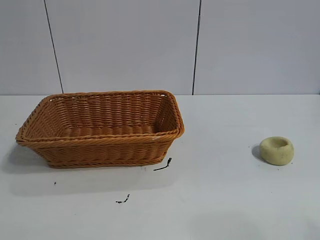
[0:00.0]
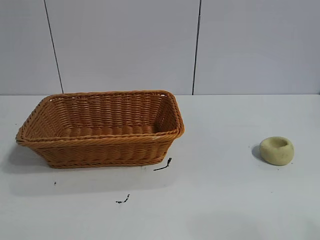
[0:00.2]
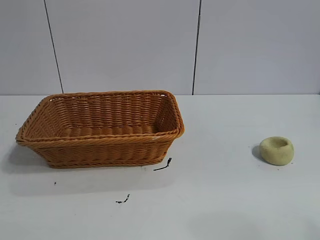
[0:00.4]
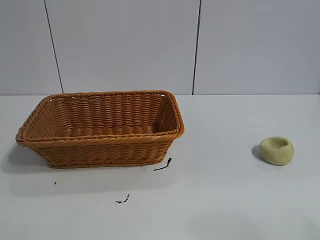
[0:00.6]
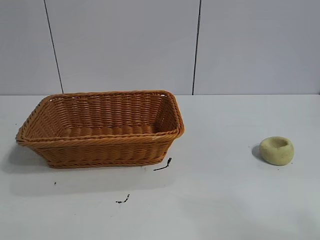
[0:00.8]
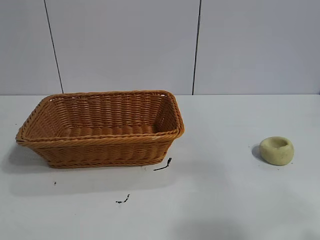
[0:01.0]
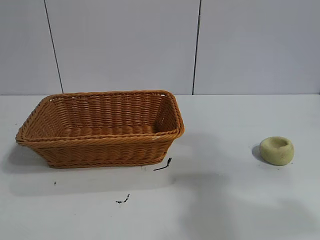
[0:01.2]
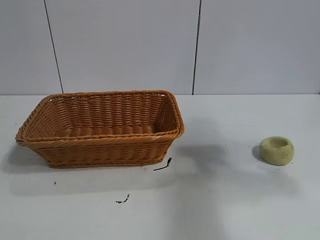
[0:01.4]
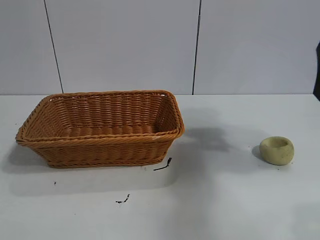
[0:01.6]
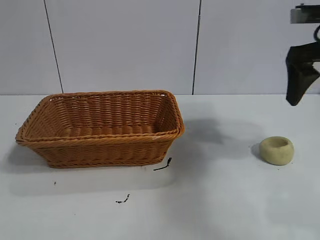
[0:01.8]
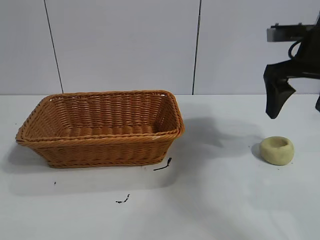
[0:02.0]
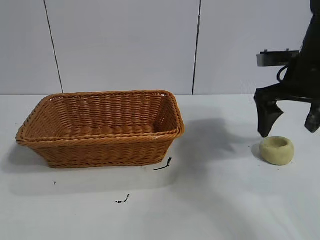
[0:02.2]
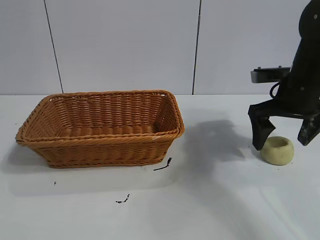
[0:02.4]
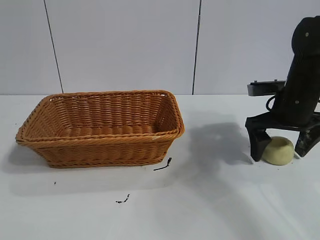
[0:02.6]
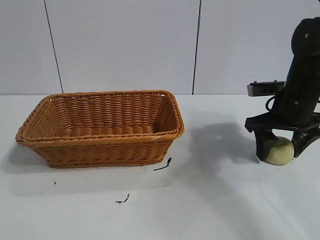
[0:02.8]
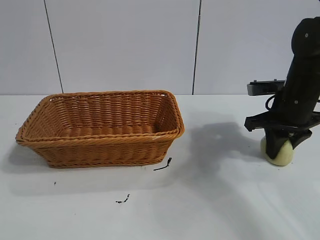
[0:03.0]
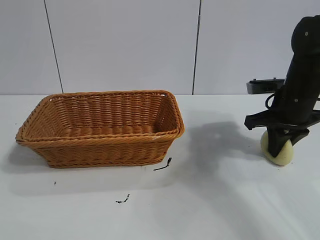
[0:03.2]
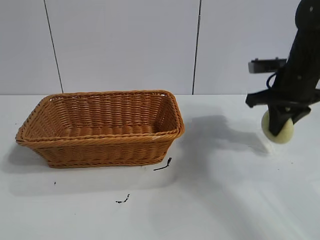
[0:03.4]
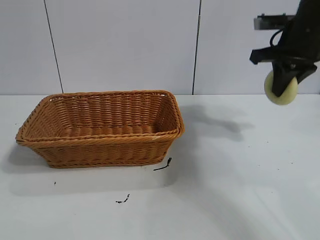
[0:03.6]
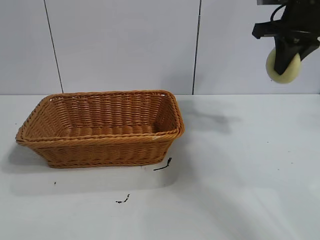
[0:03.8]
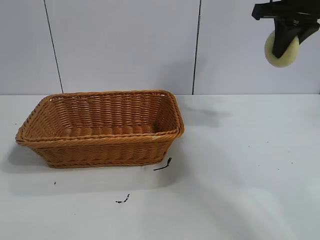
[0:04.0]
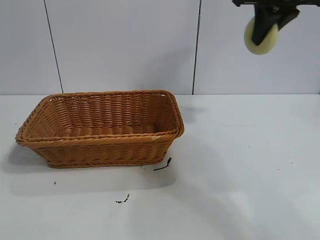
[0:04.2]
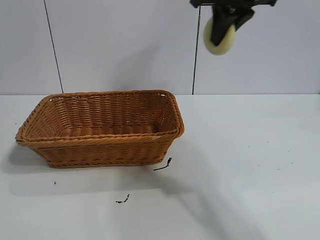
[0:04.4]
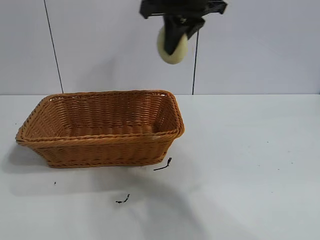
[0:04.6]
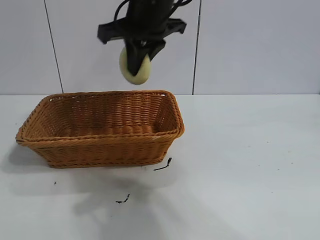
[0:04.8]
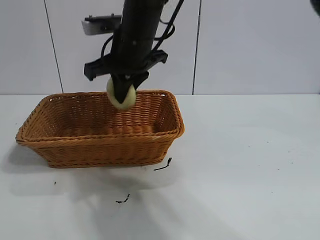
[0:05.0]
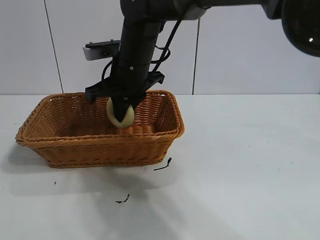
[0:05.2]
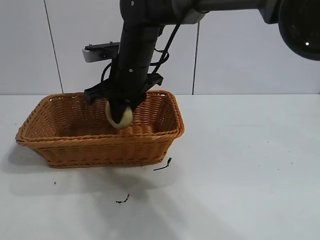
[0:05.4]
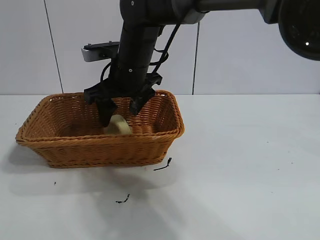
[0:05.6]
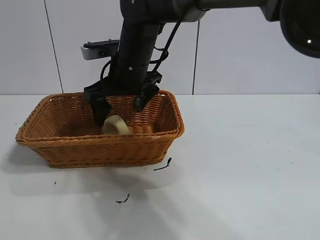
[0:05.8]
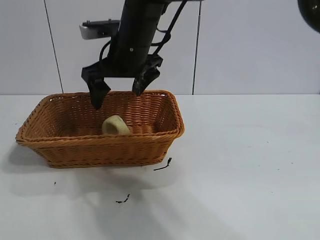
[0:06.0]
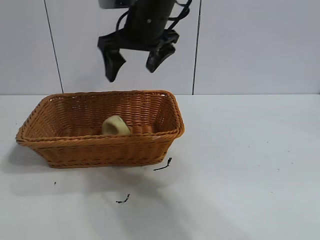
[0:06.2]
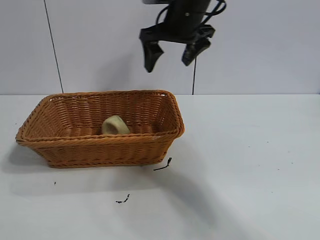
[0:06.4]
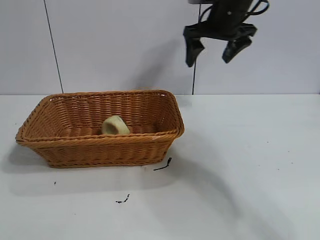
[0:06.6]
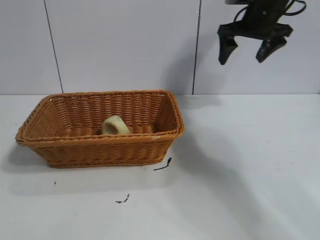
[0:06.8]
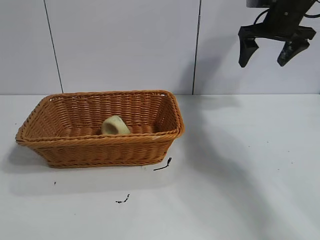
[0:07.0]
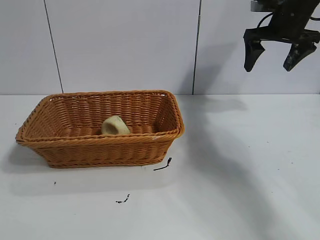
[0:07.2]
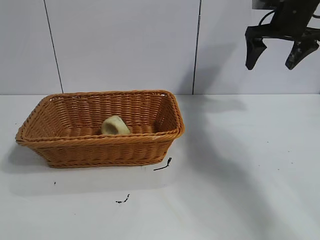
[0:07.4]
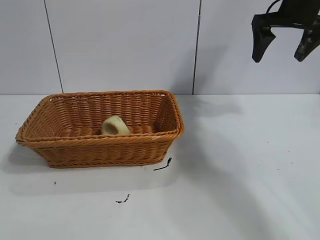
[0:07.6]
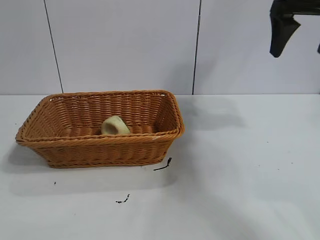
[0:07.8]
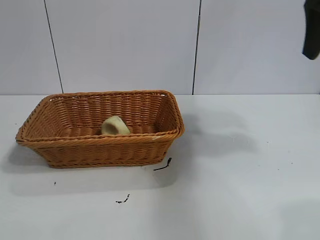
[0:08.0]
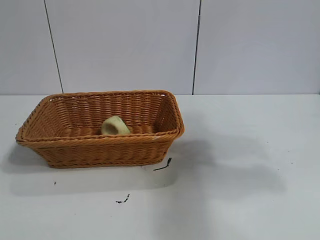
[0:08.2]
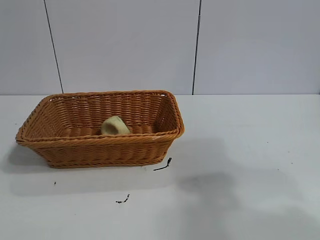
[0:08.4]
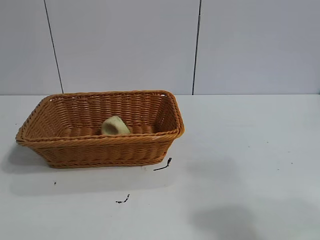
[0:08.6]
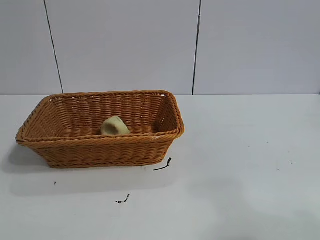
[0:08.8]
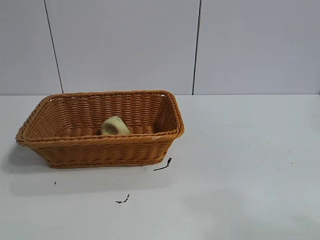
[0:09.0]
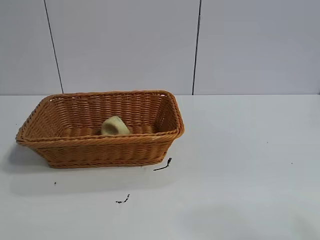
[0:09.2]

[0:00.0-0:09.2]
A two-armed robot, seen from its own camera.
Task of the whole recording: pick up the egg yolk pastry and put it into the basket.
Step, 0.8 to 2.8 s: Grasp egg yolk pastry with right gripper.
Step, 3.0 to 5.4 s: Place the egg yolk pastry in the basket with right gripper.

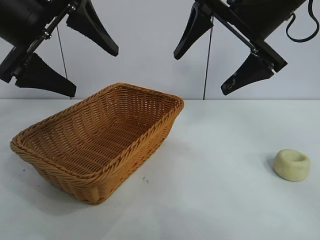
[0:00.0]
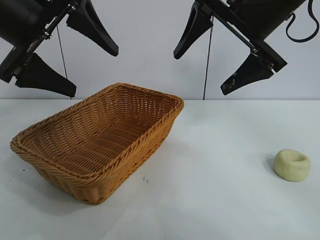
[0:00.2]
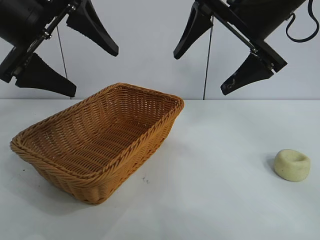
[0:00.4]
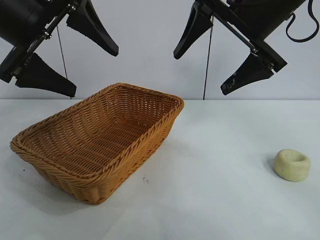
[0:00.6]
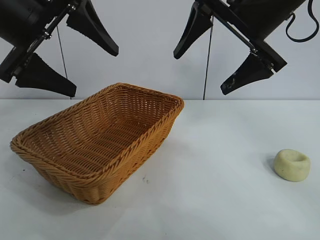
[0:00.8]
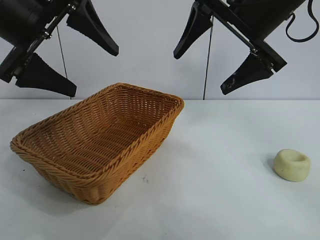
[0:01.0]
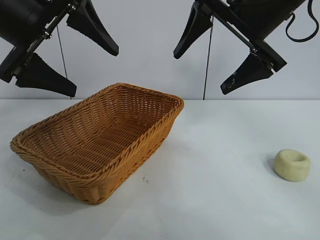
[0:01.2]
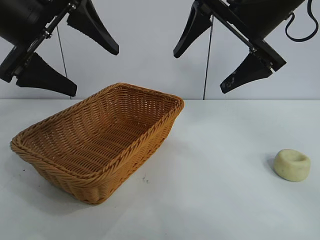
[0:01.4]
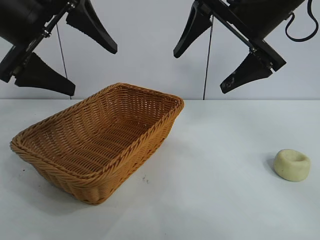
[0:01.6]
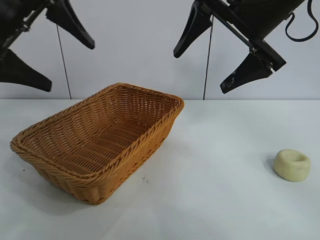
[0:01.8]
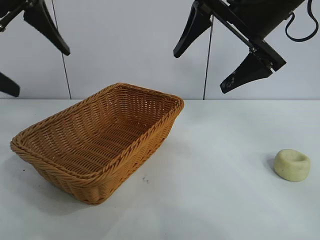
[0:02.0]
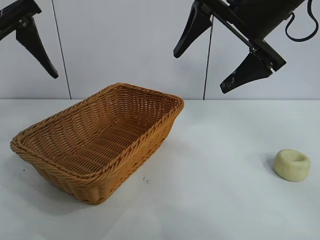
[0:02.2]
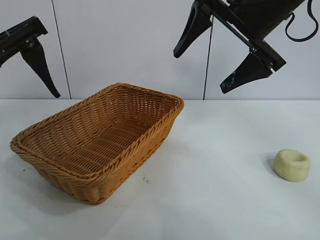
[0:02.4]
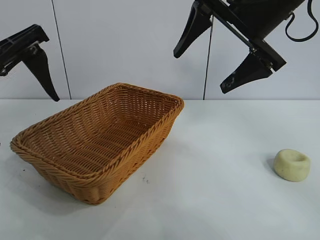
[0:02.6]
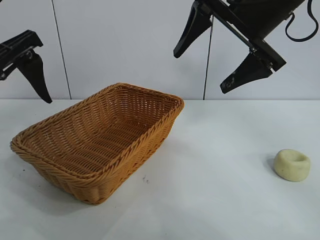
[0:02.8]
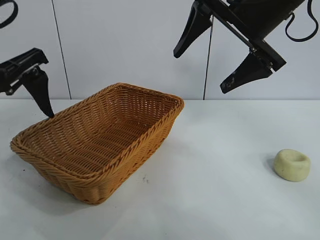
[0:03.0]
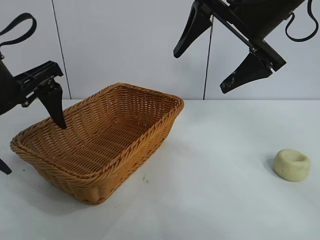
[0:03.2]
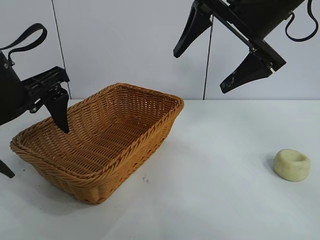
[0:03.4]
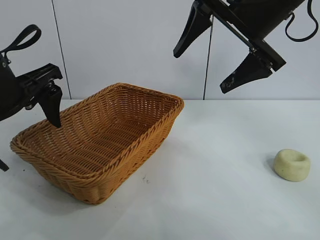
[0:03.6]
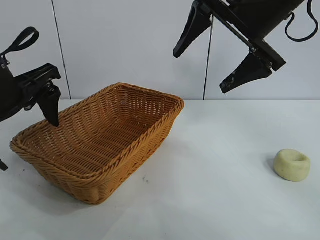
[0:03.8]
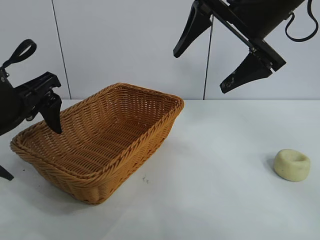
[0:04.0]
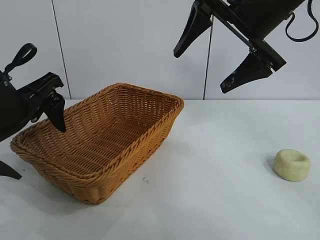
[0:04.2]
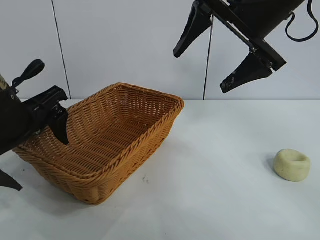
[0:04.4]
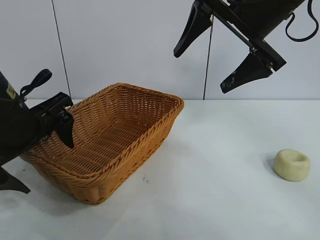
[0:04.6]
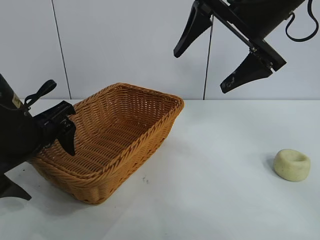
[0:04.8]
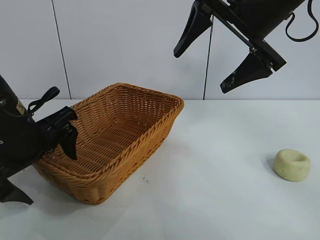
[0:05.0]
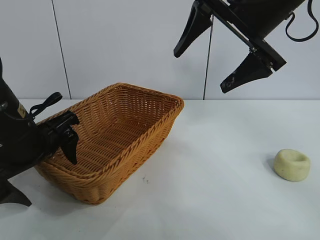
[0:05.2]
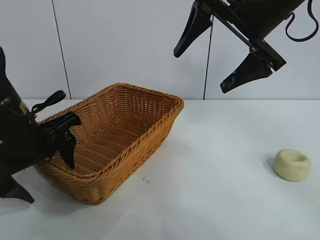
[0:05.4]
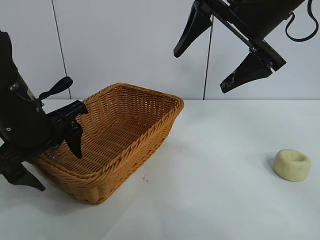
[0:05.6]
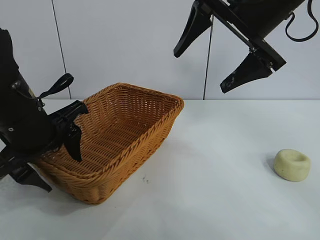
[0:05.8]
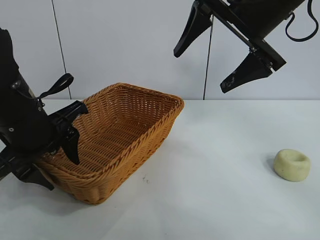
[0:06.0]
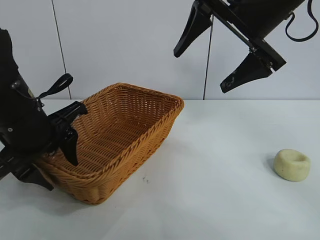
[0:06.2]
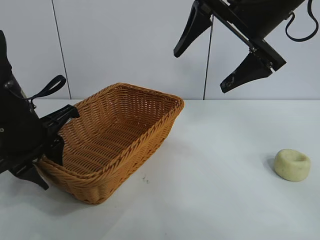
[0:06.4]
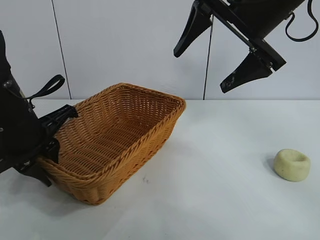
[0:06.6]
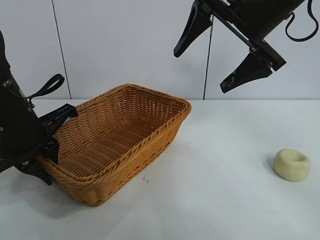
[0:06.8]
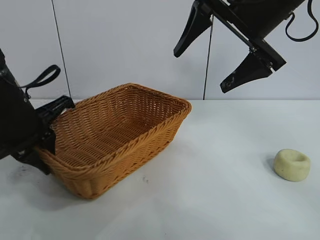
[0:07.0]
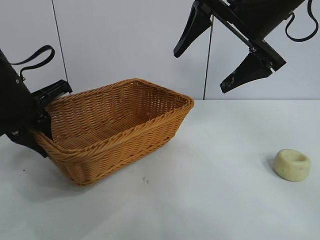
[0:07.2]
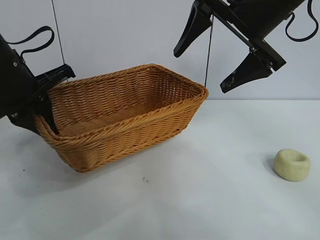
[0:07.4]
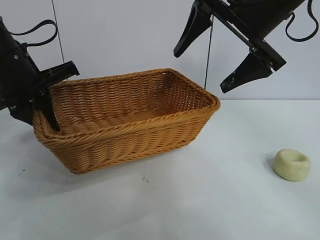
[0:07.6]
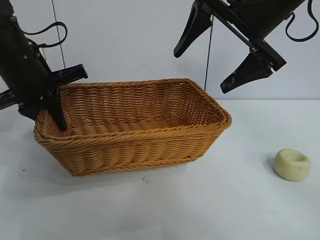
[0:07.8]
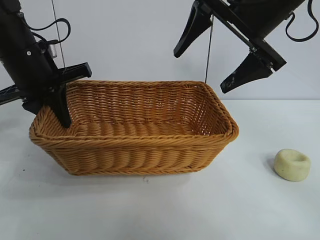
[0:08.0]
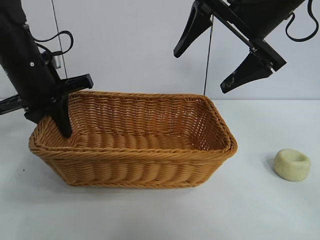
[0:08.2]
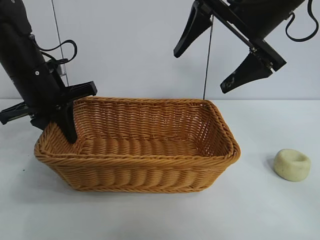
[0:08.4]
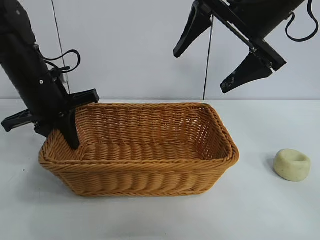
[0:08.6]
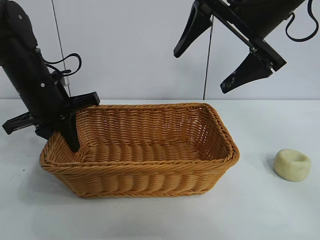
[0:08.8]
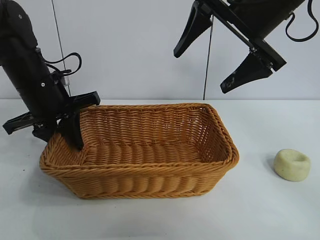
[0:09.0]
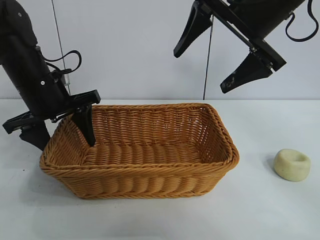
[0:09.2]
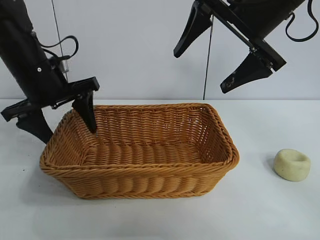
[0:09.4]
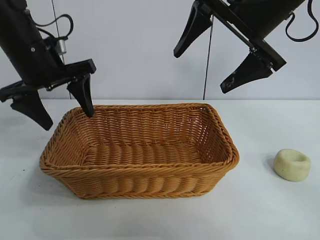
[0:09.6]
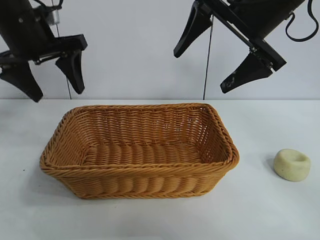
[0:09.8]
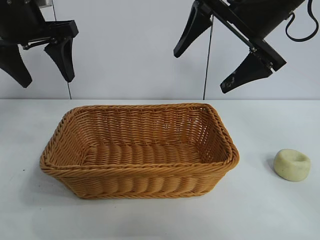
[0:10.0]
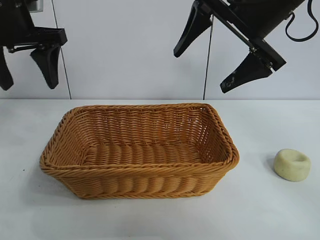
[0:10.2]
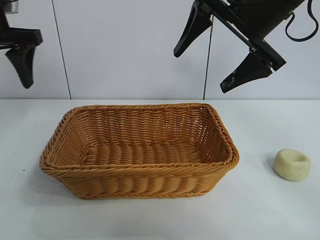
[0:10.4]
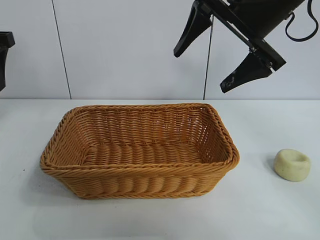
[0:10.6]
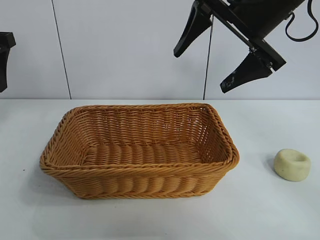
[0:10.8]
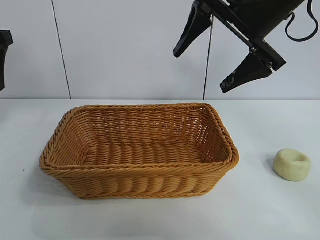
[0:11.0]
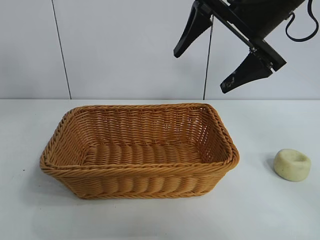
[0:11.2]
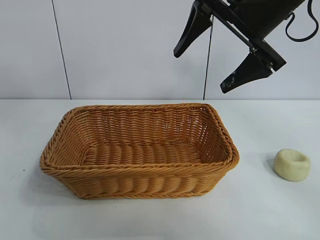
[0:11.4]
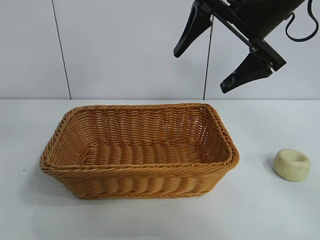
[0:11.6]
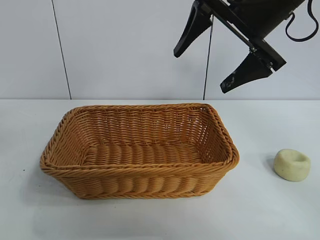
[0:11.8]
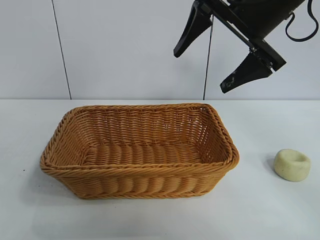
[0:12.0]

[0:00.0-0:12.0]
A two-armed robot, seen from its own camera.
Task of the whole recording: pick up the egg yolk pastry and put it into the basket.
Step, 0.8 to 6.6 s: Grasp the basket with left gripper.
Step, 7.0 to 9.0 s: Place the basket in the center of view with left gripper.

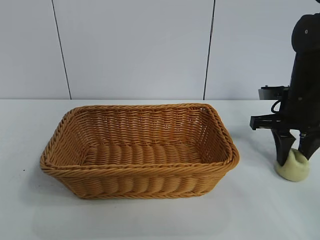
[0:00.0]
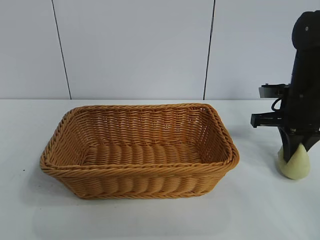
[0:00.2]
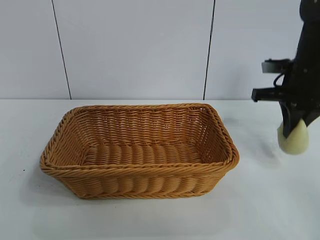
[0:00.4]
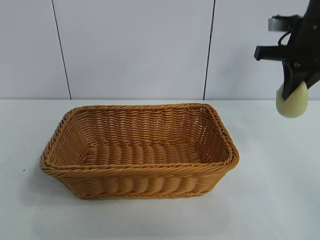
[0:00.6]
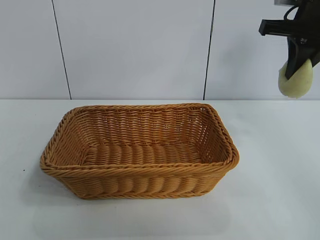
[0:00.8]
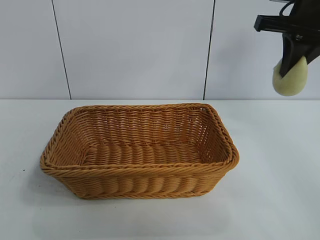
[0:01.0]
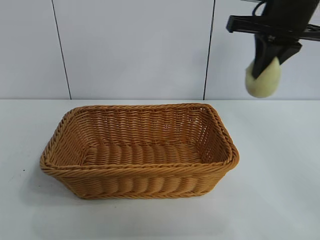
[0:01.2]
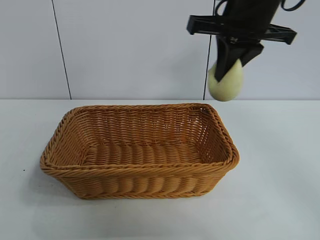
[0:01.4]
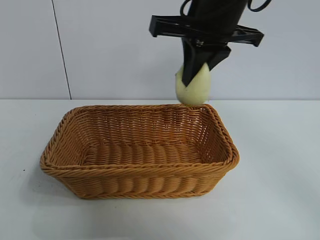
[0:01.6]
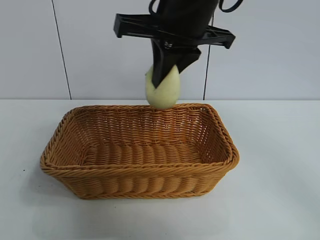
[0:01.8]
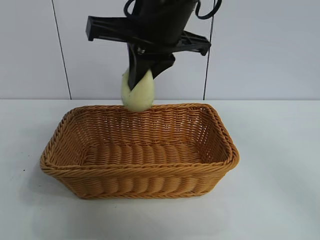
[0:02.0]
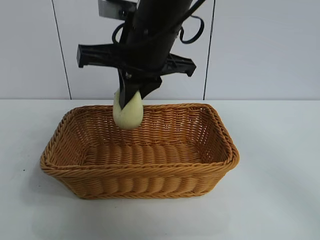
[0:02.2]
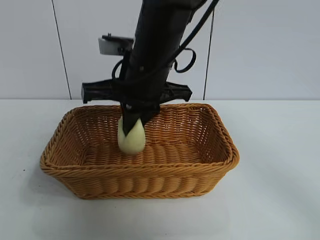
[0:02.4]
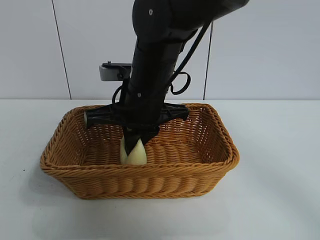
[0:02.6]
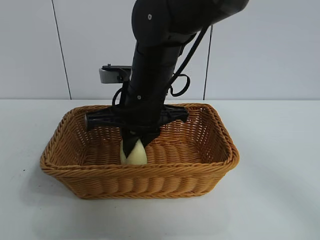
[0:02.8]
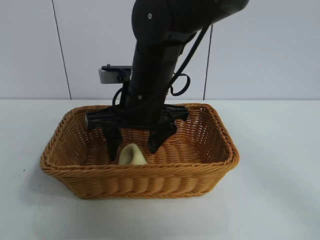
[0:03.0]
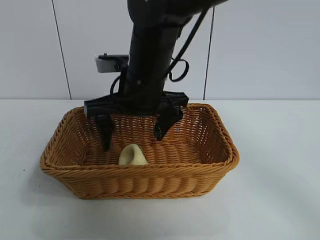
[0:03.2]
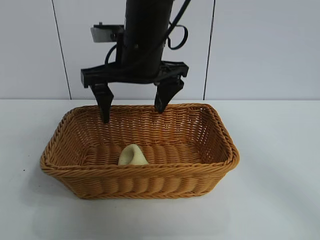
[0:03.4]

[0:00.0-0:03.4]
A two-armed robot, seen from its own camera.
Task of the whole recording: pick up the egg yolk pastry and put it into the basket.
Step, 0.2 to 2.8 s: Place the egg yolk pastry in the basket with right gripper.
